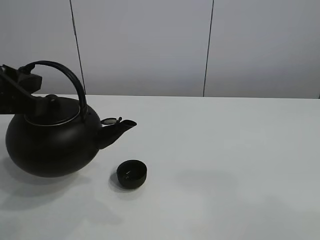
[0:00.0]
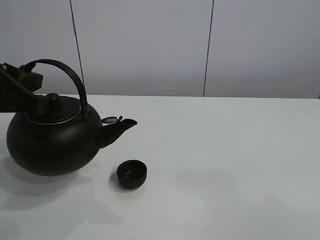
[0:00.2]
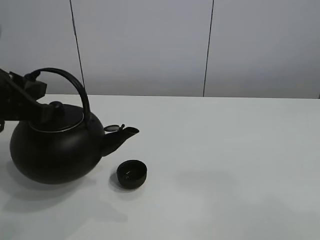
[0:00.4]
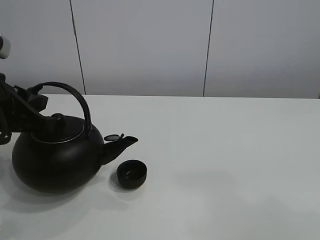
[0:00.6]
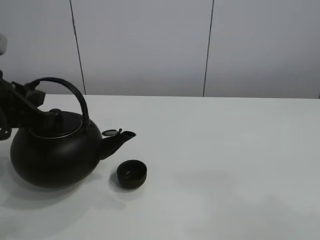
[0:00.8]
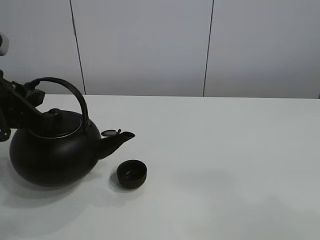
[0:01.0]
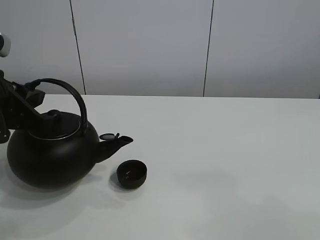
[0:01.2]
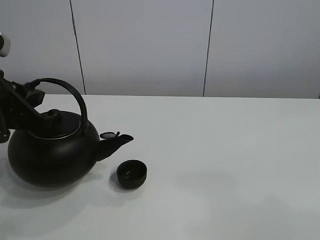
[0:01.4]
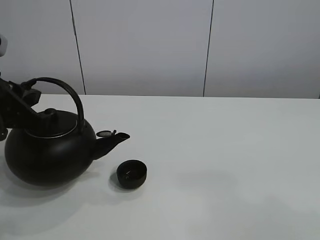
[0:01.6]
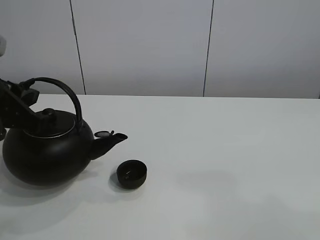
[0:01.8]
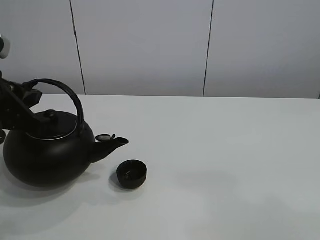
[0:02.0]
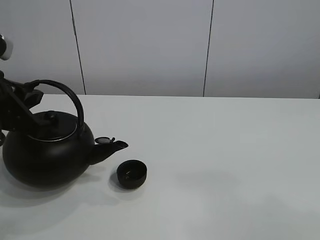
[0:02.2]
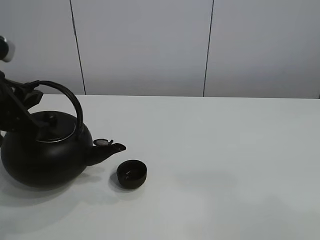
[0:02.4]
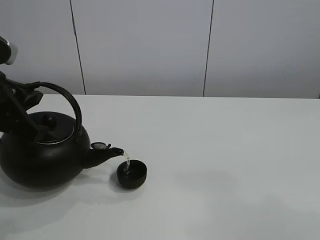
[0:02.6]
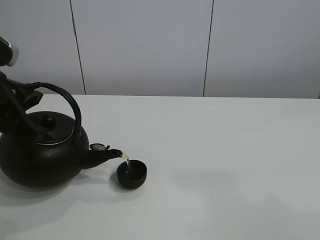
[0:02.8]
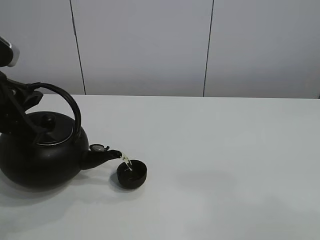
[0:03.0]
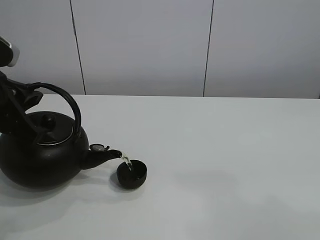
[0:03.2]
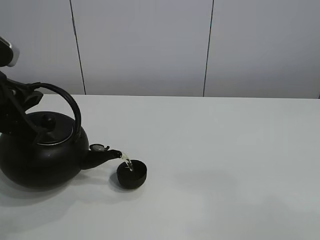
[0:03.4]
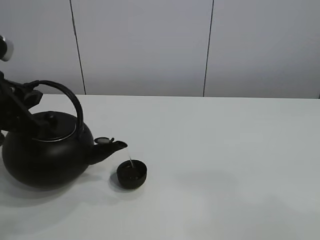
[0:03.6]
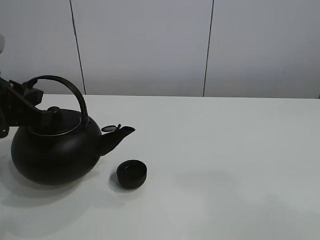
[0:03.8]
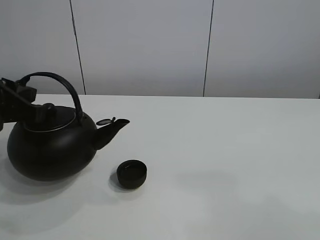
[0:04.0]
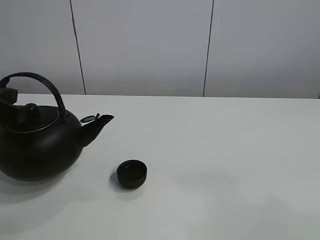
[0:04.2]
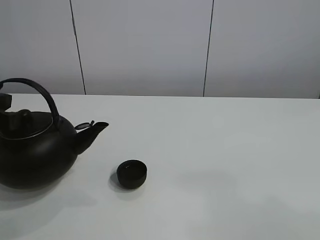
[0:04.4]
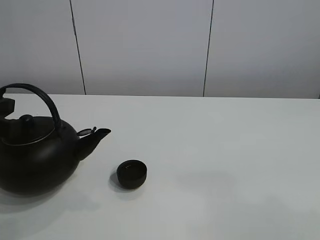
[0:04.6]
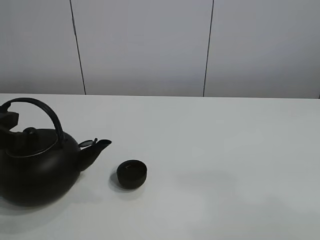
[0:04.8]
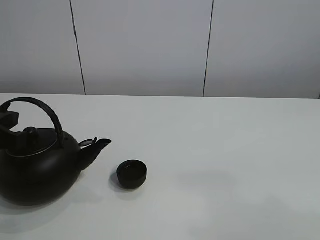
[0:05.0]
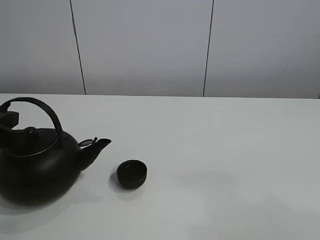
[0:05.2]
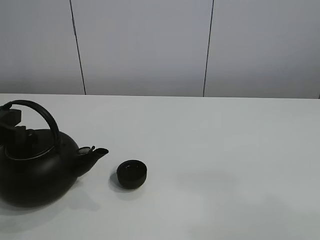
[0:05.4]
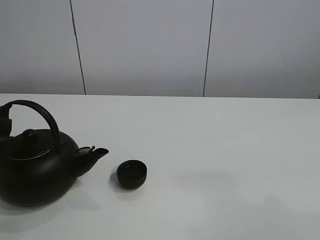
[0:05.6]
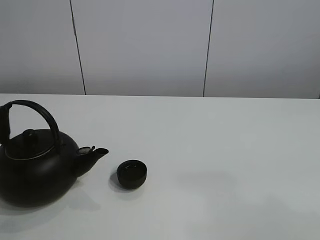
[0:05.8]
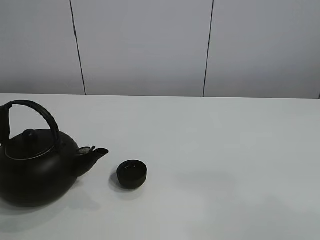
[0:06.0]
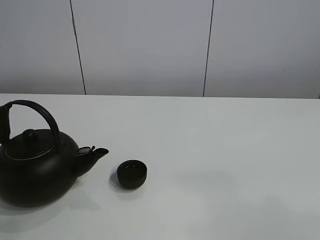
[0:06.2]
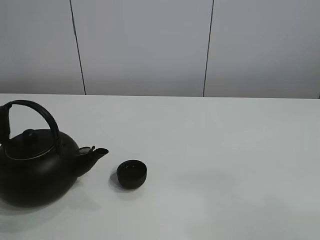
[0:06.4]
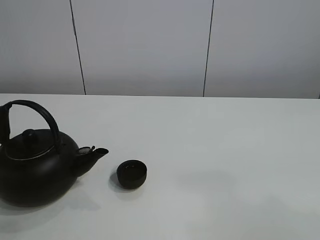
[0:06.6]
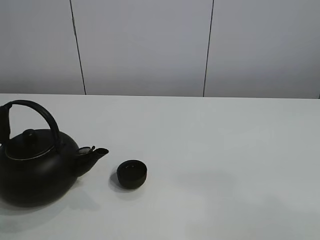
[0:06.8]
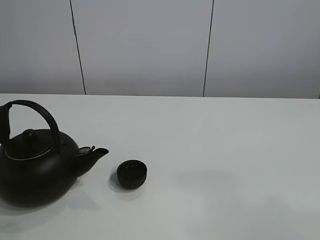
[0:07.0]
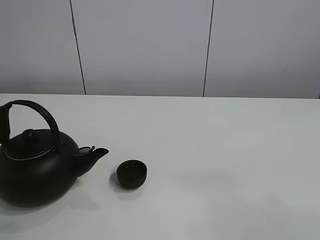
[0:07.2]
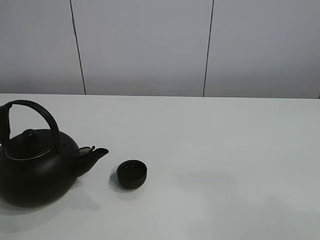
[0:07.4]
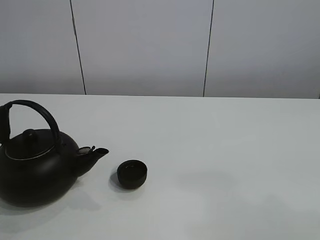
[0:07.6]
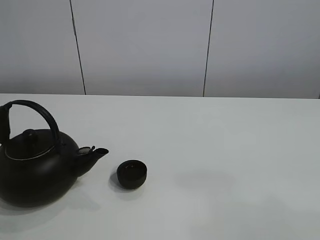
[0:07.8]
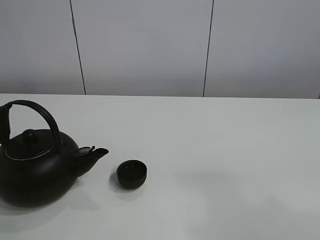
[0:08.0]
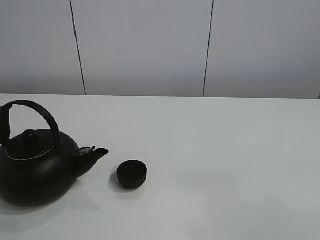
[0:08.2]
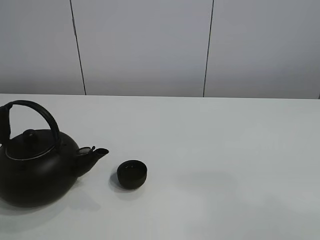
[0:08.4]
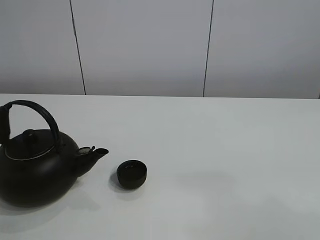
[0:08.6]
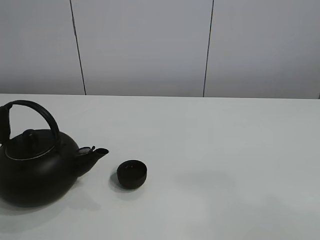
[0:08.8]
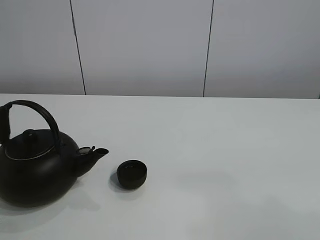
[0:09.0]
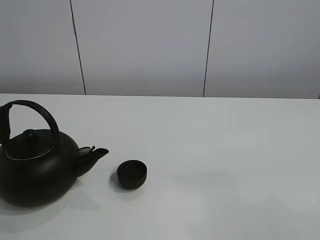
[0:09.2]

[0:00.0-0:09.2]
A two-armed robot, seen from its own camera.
Task of the whole recording: pour tea into the teacup.
Step, 0.0 to 3.6 s: Pour tea into the teacup with the left gripper.
0.0 to 3.0 s: The grippers make only small movements.
4.6 to 6.2 s: The left gripper ends up roughly 5 cm from where it was, and opens up.

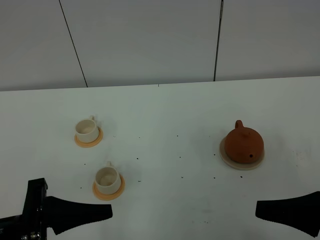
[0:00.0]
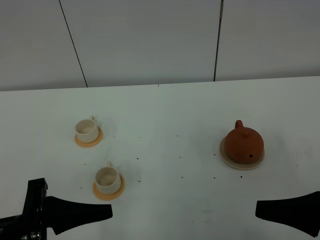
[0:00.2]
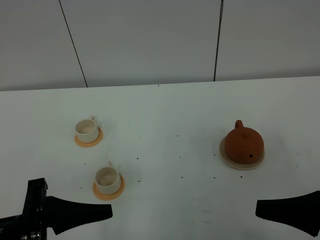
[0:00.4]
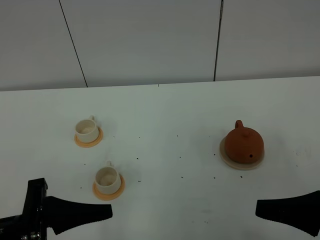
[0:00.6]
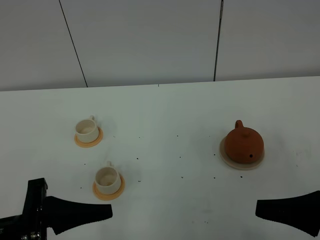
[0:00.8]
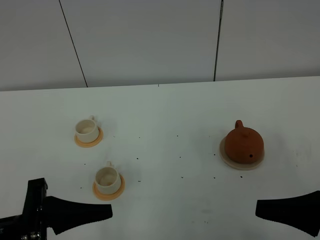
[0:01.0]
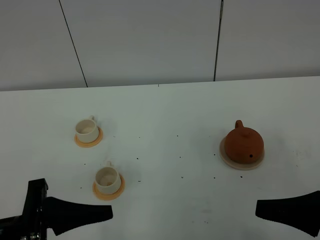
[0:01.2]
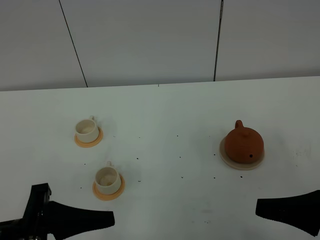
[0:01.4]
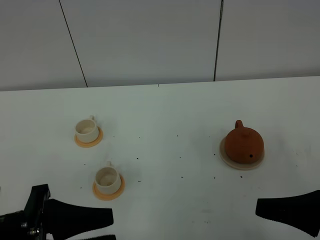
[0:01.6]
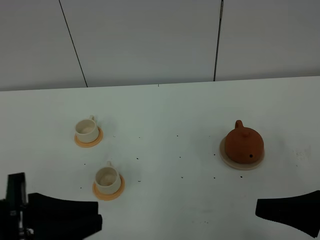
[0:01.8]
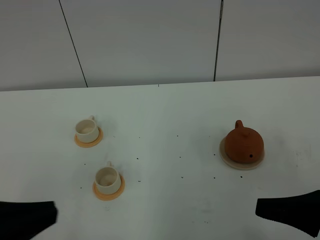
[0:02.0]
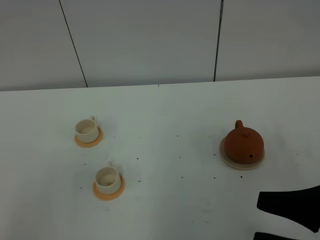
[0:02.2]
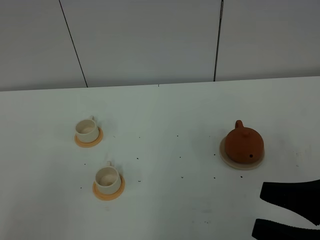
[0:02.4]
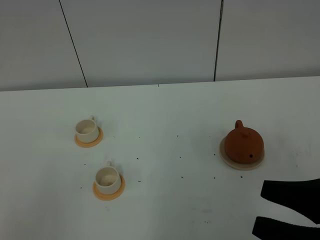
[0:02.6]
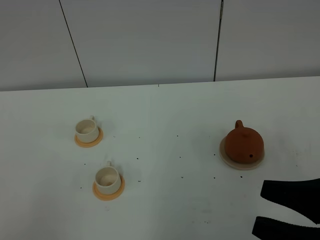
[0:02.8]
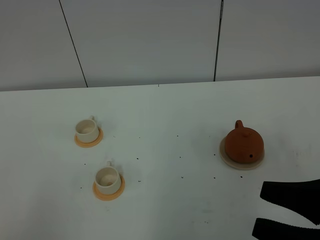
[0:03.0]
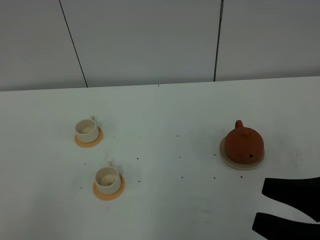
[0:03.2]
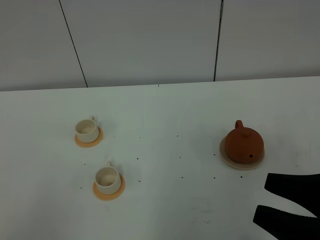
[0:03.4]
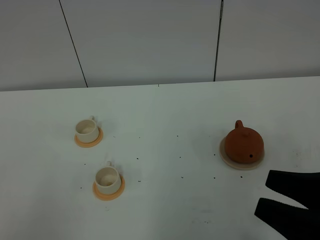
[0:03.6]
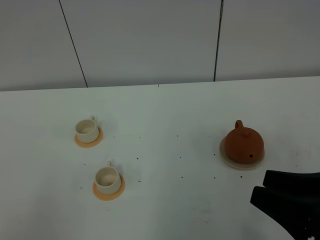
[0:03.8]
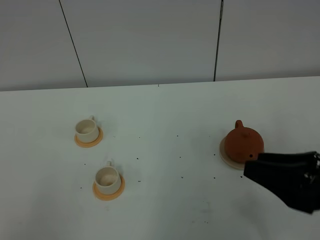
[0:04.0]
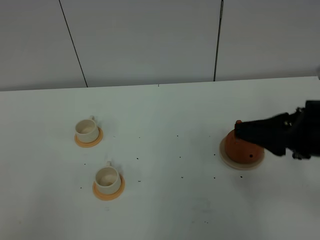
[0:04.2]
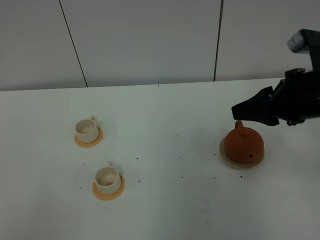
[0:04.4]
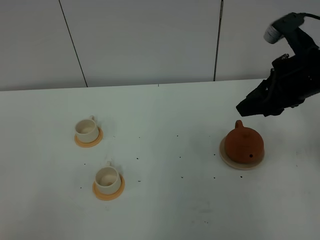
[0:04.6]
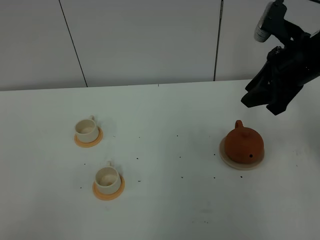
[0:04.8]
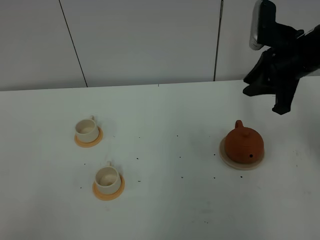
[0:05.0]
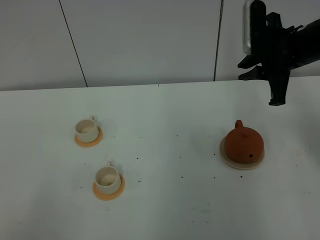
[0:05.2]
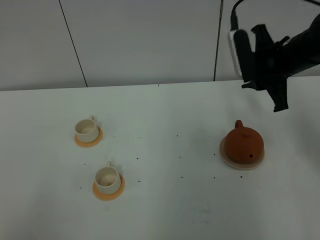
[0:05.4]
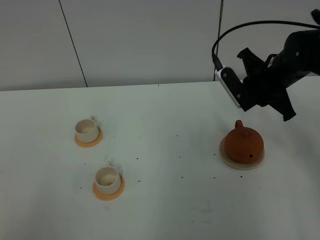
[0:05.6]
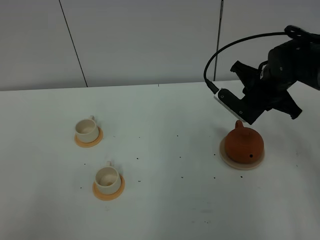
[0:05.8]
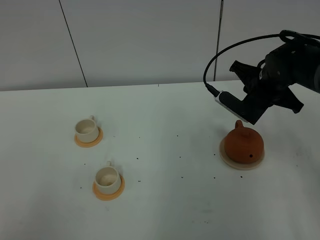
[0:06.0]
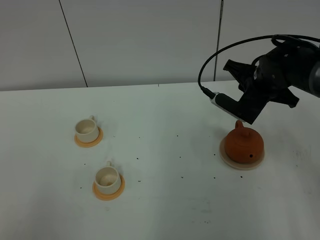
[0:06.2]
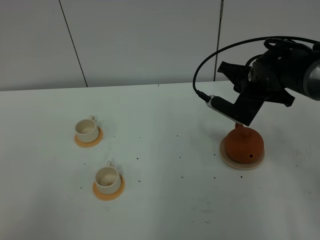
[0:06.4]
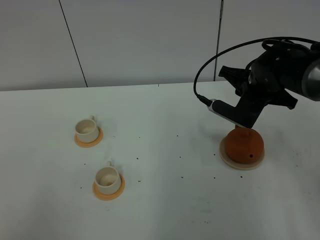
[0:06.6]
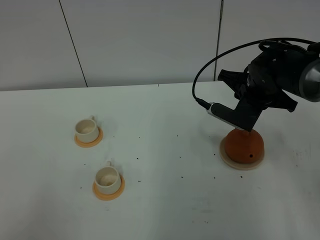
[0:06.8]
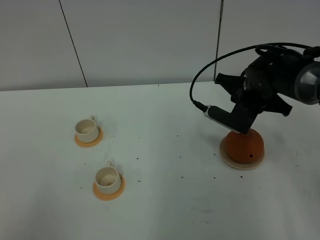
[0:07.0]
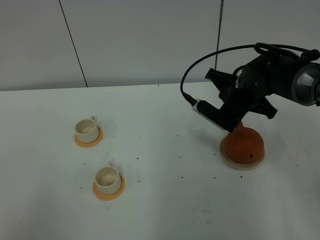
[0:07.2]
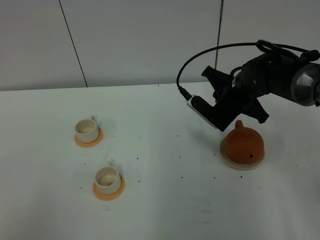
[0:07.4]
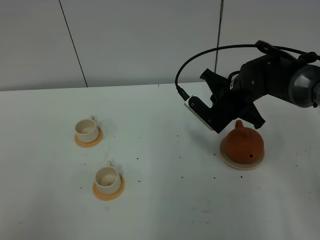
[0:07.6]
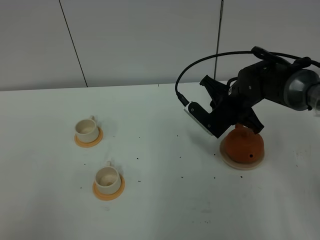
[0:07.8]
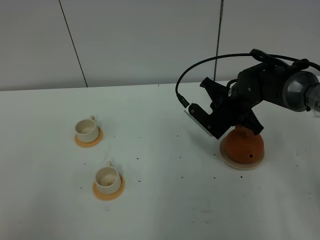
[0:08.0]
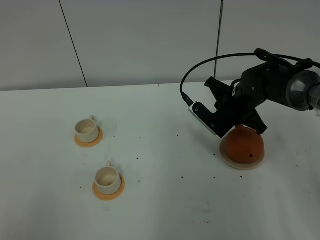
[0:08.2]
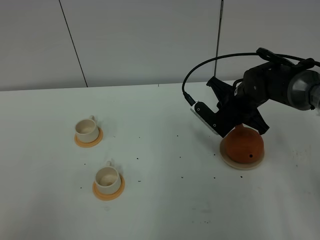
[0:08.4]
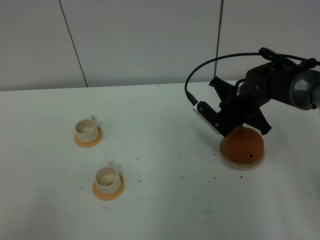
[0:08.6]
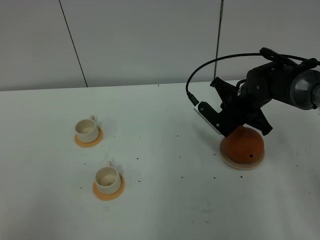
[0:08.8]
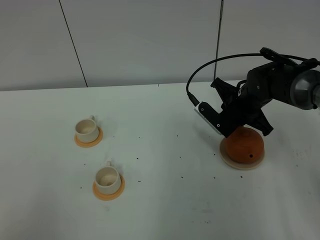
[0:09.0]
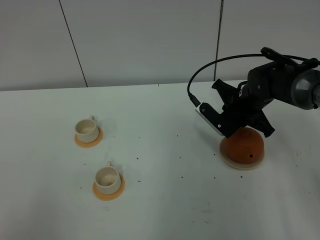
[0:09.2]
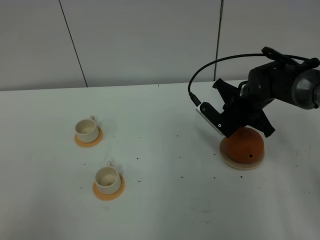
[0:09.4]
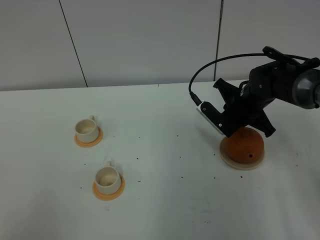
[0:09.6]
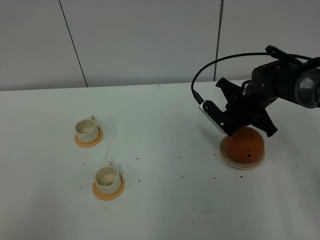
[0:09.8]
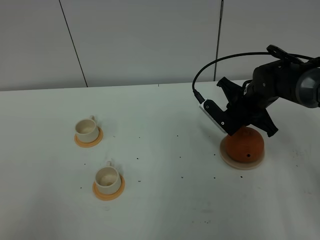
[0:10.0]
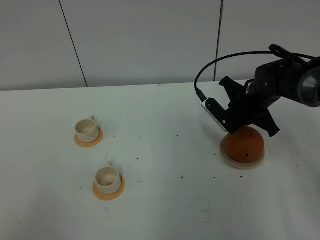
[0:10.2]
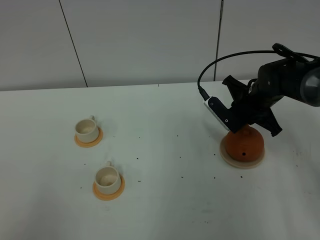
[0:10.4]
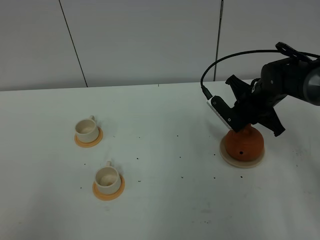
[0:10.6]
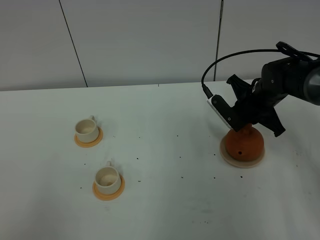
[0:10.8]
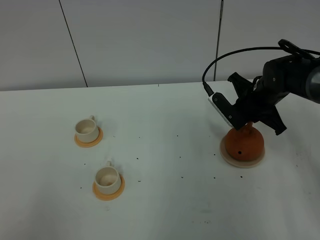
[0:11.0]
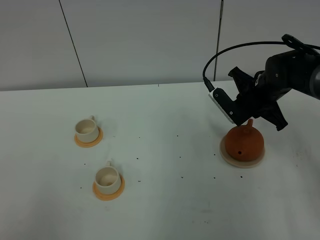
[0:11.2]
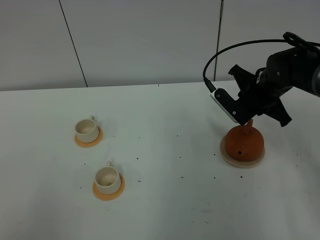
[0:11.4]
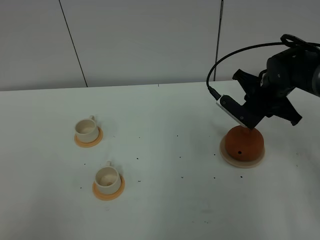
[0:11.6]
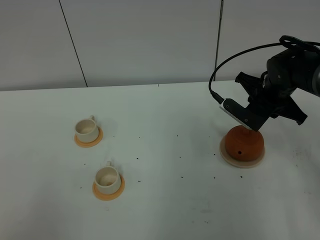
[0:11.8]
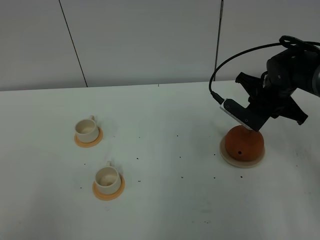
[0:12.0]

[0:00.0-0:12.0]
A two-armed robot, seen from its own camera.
Task of the whole recording: grasp the brown teapot and pour the tea into the two white teacups one by one, put the brown teapot back in its original place.
0.0 to 1.6 s: There are only small adjustments of the grippers.
1.6 to 3.0 s: The left gripper is displaced backward and to the left by some 15 cm, and closes up.
3.0 to 4.4 s: The right gripper heads forward, covering roughly 20 cm.
4.4 to 6.0 s: The right gripper goes about 15 cm forward and downward, and closes its fingers.
6.0 to 7.6 s: The right gripper travels to the left by roughly 5 cm.
7.6 to 10.4 s: The grippers stay close to where they were, moving slightly.
10.4 to 12.0 s: The grippers move only a little.

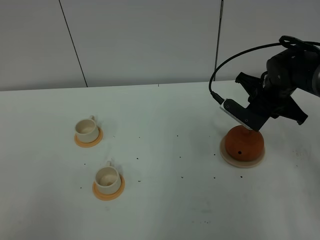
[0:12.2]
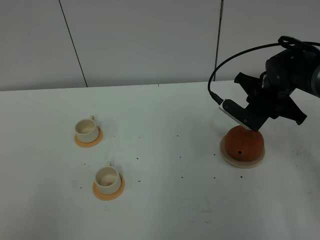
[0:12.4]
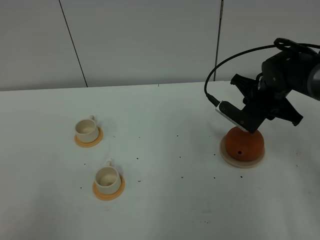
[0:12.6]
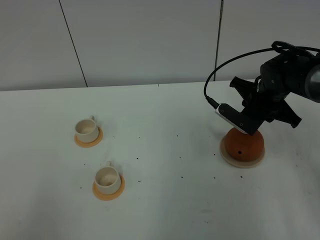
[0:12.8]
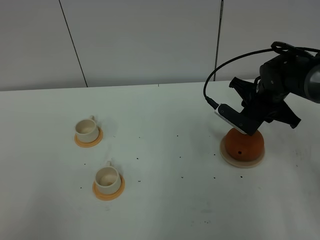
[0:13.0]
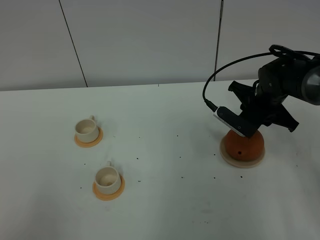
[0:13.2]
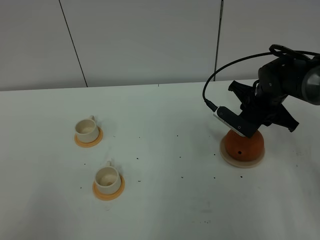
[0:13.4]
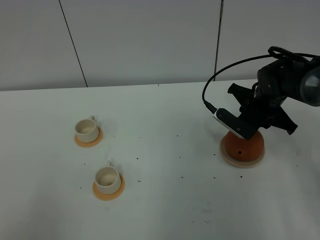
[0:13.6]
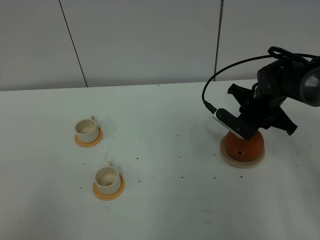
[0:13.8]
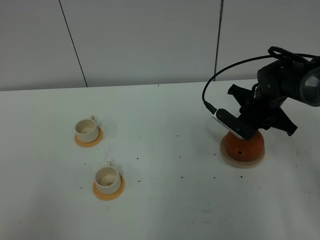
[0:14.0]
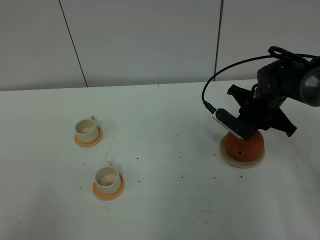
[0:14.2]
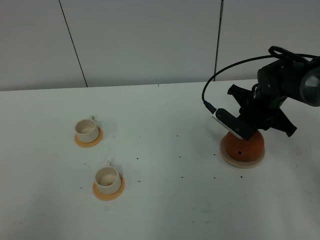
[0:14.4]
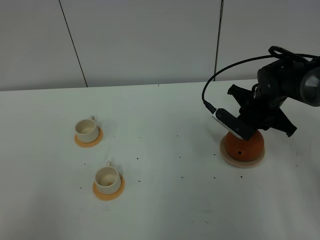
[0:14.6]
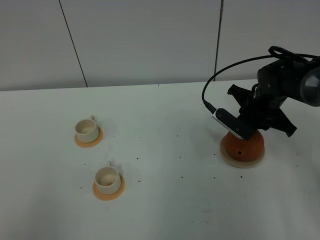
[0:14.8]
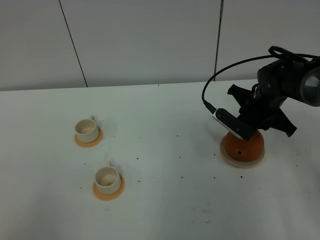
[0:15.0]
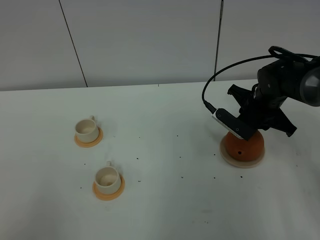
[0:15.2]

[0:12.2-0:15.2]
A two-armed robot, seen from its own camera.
Task of the whole recording: grasp the brown teapot and pour the tea into the two white teacups one by one, put the brown teapot back in its original place.
12.2 to 13.8 s: The grippers stay close to where they were, moving slightly.
13.8 to 15.2 s: The two grippers keep their place.
